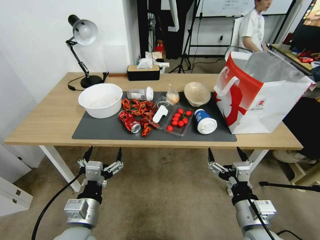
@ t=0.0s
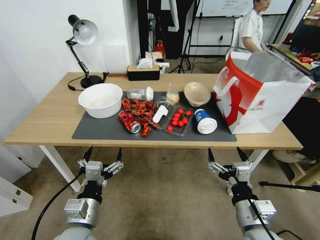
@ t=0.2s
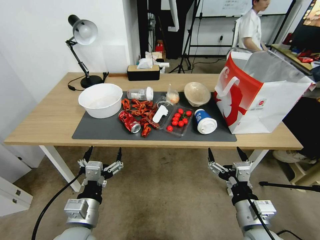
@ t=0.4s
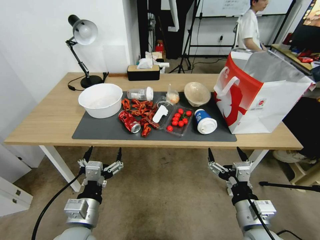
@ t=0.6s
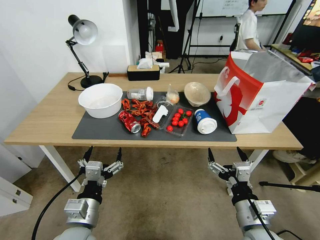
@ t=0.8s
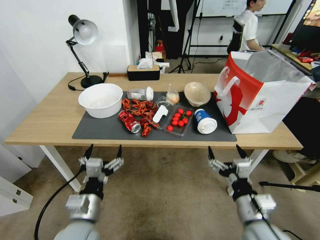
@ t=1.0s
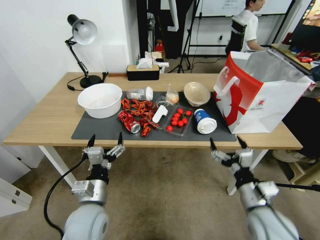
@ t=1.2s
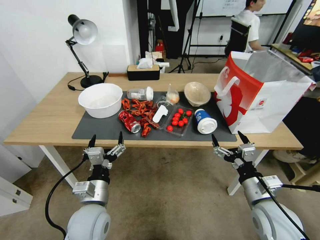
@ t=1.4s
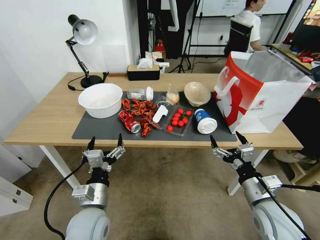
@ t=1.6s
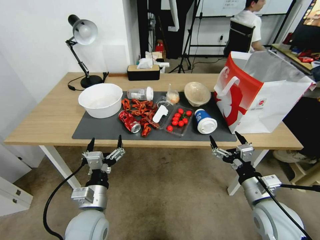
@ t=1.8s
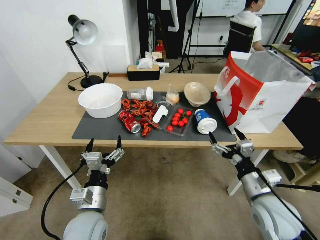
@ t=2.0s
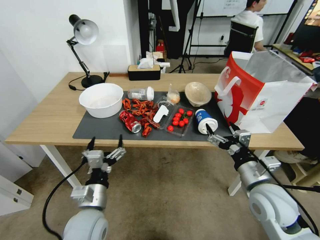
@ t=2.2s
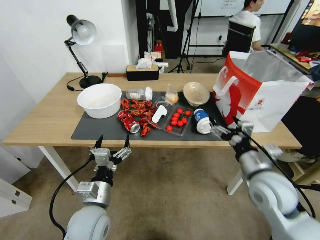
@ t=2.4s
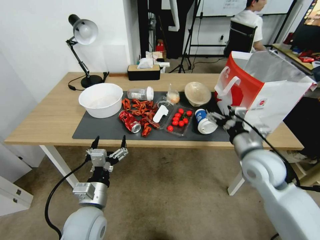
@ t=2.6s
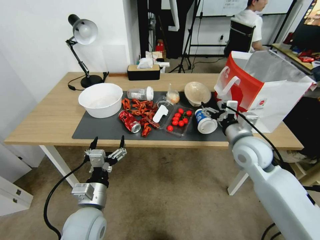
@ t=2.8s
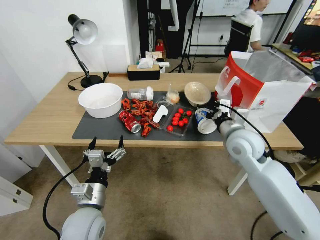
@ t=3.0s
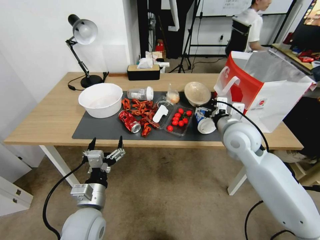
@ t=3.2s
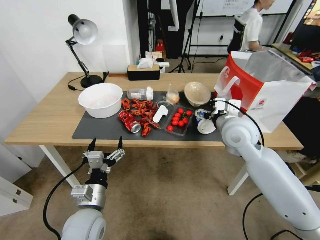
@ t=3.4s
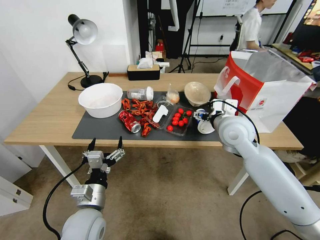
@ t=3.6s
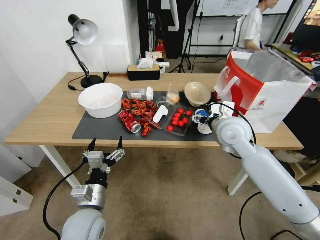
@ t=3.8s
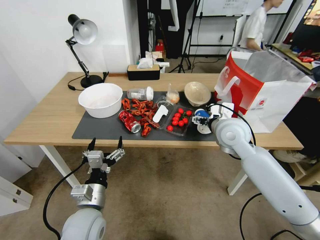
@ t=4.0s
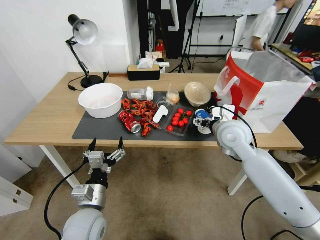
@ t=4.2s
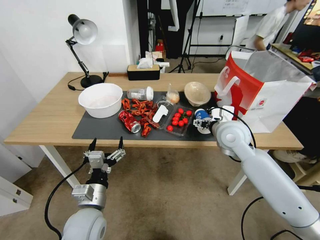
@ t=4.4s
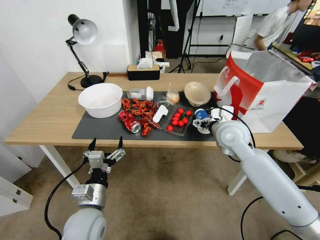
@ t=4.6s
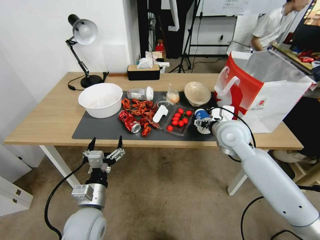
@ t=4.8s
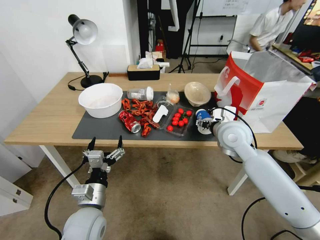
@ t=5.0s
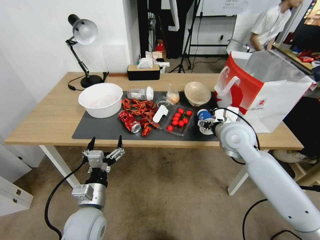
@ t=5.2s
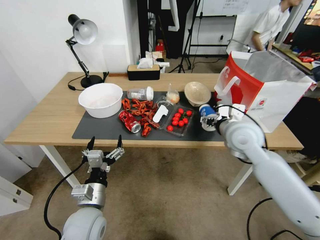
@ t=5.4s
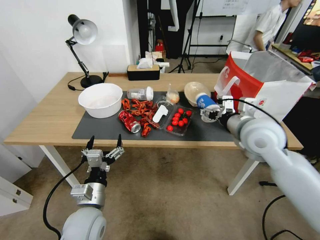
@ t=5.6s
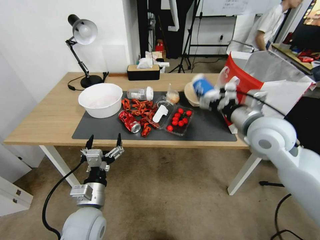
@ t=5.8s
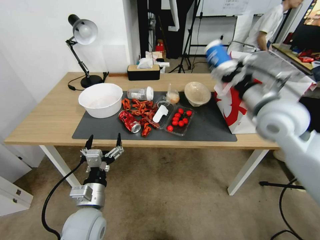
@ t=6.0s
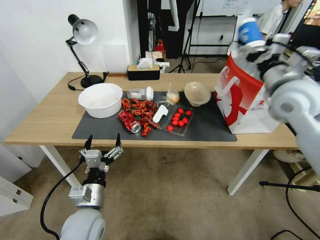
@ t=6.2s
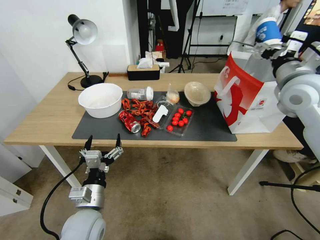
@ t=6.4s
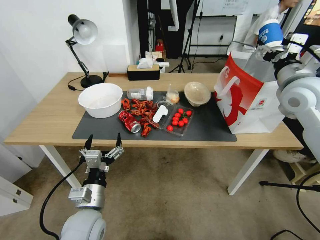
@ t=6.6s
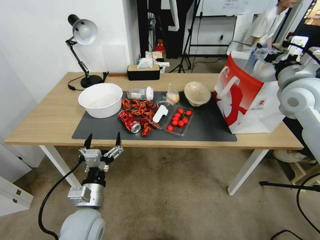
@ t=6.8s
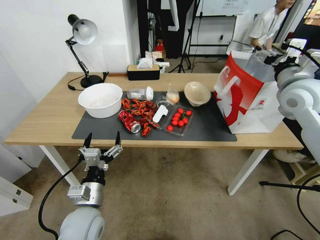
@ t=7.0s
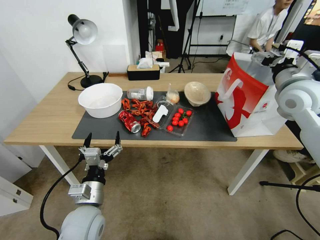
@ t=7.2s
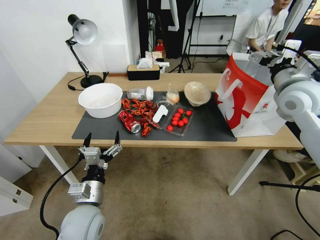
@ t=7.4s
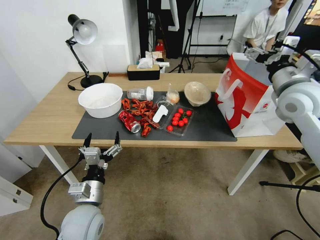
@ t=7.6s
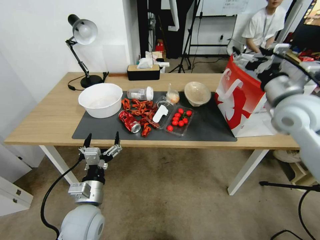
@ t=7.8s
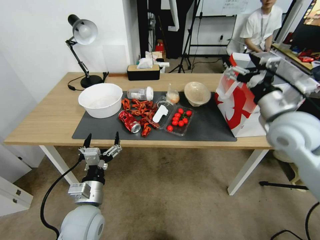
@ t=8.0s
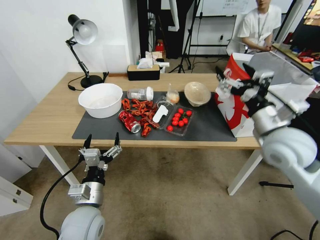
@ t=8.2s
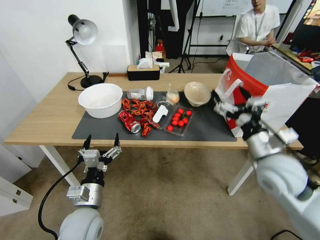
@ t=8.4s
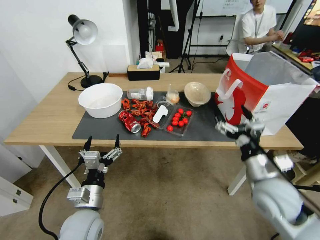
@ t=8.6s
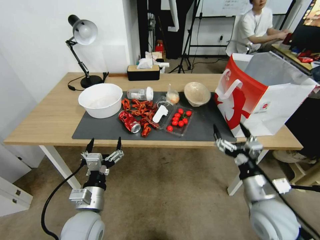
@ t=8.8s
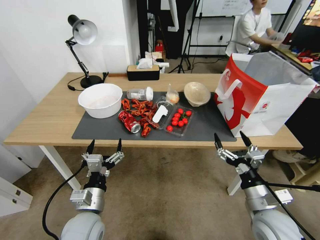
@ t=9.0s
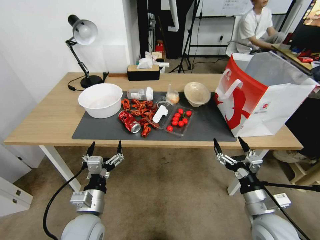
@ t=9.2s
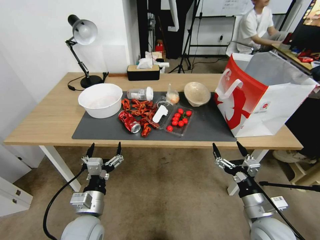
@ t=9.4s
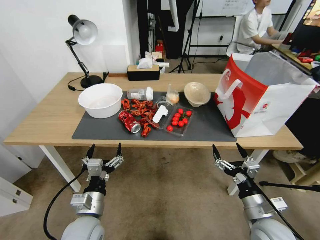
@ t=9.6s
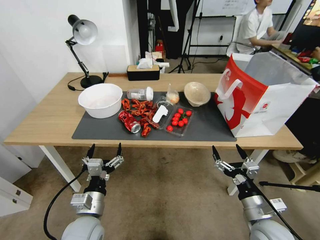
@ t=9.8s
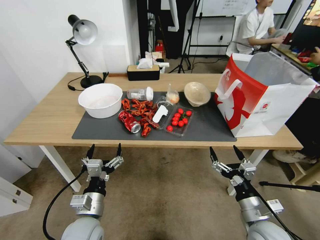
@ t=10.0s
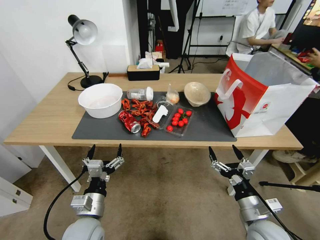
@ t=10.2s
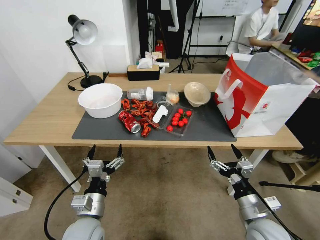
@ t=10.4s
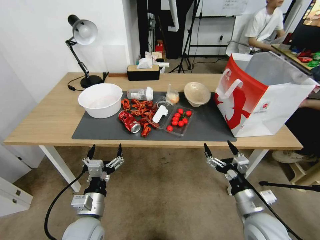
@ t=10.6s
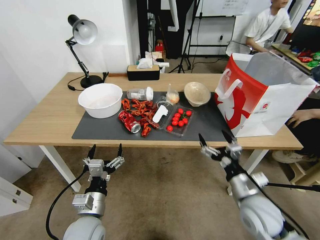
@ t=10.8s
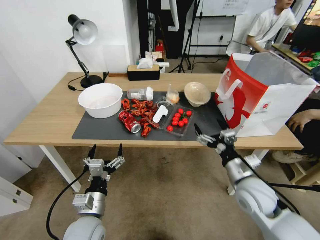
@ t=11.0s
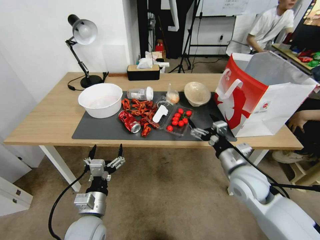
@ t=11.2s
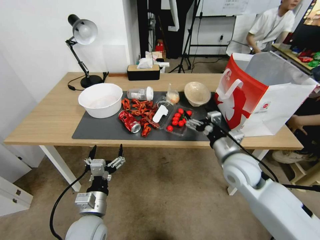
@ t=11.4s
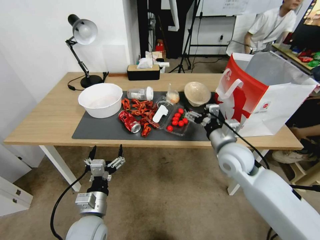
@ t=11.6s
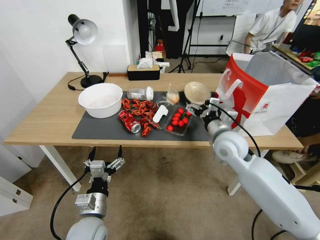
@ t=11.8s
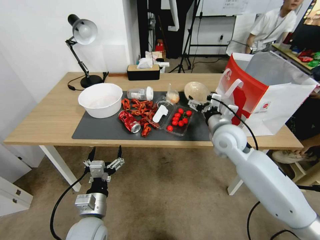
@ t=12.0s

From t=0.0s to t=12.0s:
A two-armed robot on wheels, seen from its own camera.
From t=1.6s to t=3.0s: The right gripper shifts some 20 cm forward and upward.
From t=4.4s to t=6.0s: The right gripper moves upward and to the right, about 15 cm.
From t=6.0s to t=7.6s: The right gripper travels to the right by approximately 5 cm.
From t=7.6s to t=9.0s: The right gripper shifts some 35 cm downward and backward.
From t=9.0s to t=10.4s: The grippers move only a little.
From t=10.4s to t=12.0s: The right gripper goes approximately 25 cm forward and upward.

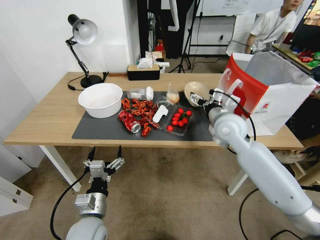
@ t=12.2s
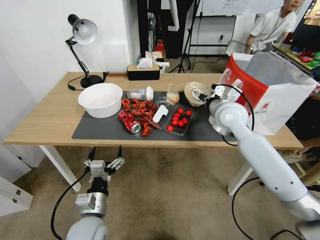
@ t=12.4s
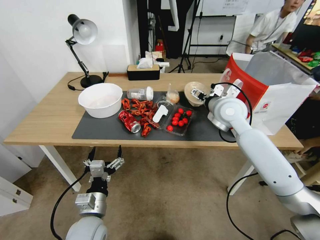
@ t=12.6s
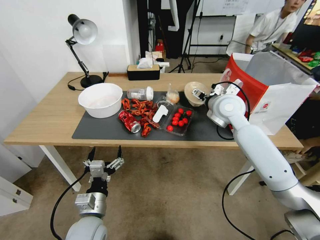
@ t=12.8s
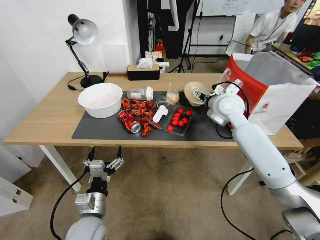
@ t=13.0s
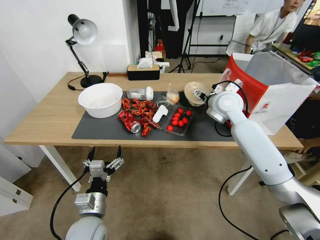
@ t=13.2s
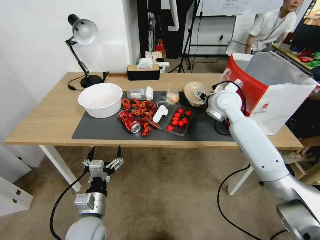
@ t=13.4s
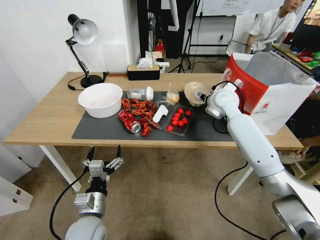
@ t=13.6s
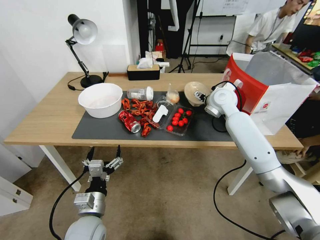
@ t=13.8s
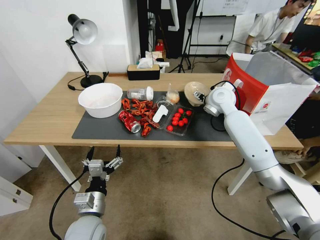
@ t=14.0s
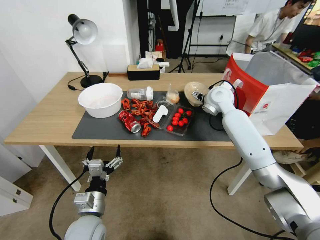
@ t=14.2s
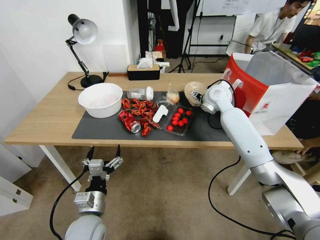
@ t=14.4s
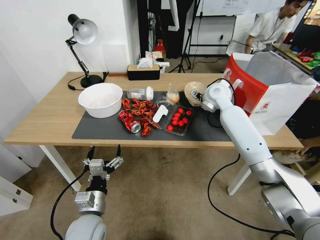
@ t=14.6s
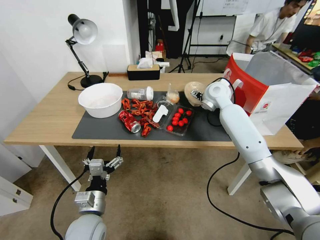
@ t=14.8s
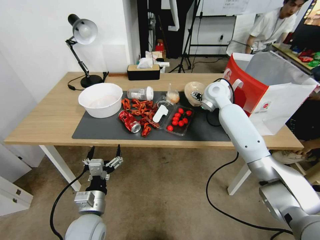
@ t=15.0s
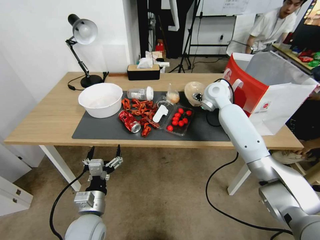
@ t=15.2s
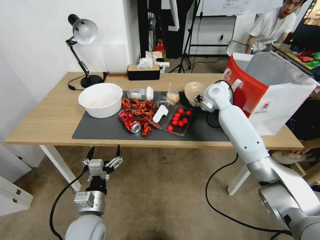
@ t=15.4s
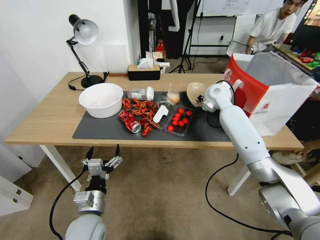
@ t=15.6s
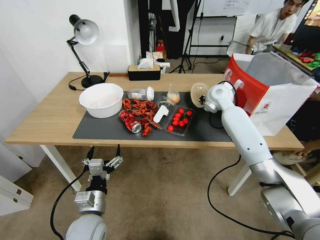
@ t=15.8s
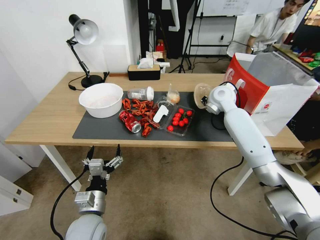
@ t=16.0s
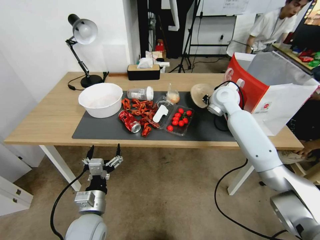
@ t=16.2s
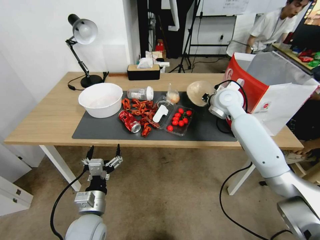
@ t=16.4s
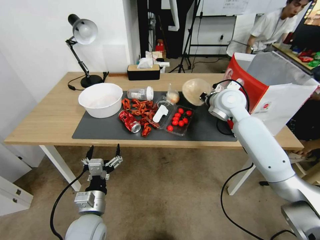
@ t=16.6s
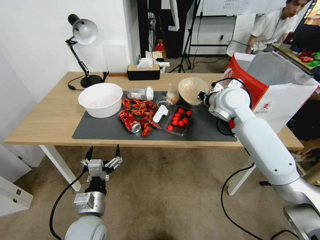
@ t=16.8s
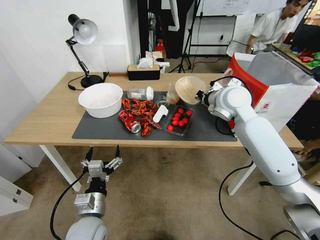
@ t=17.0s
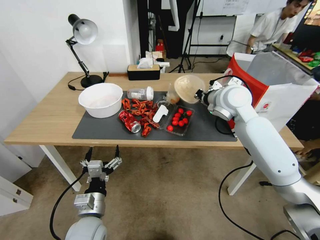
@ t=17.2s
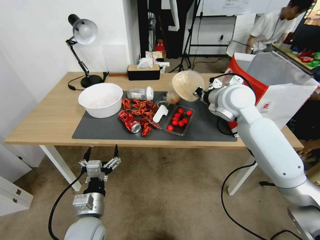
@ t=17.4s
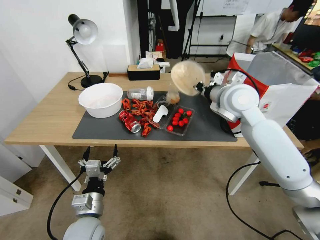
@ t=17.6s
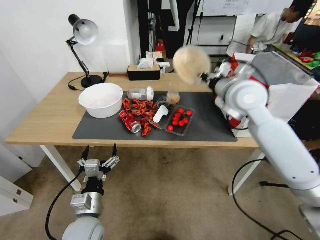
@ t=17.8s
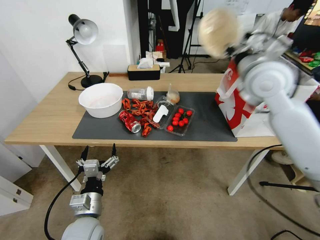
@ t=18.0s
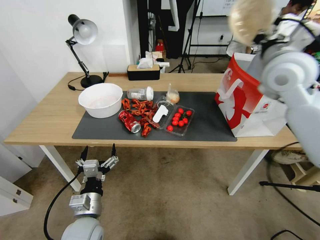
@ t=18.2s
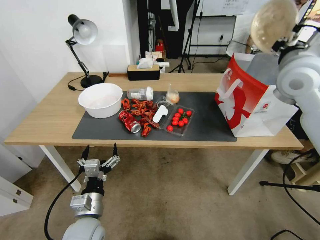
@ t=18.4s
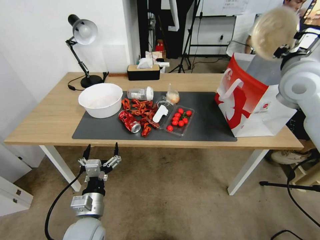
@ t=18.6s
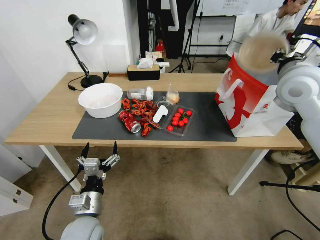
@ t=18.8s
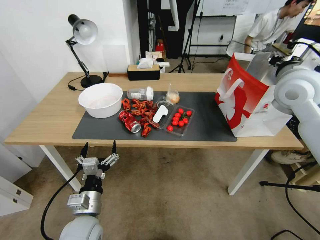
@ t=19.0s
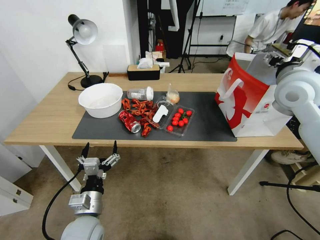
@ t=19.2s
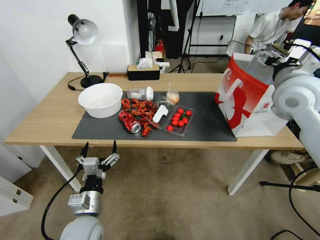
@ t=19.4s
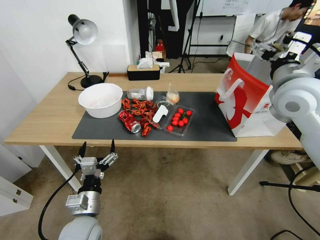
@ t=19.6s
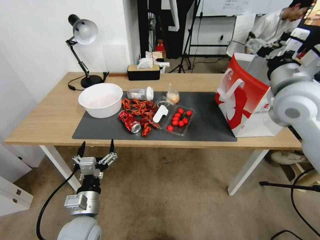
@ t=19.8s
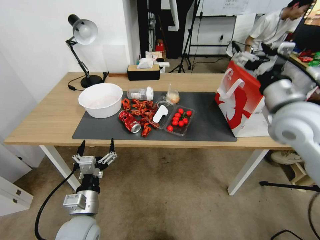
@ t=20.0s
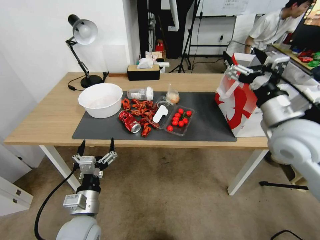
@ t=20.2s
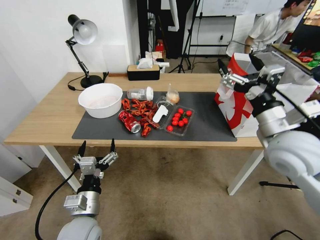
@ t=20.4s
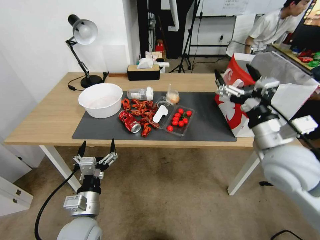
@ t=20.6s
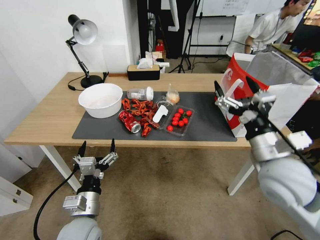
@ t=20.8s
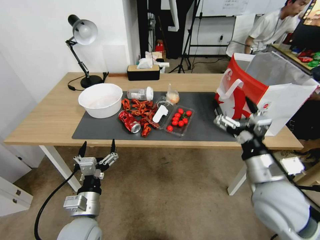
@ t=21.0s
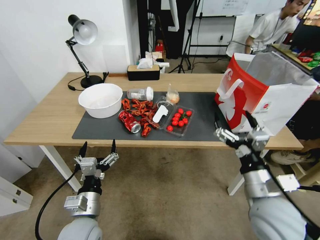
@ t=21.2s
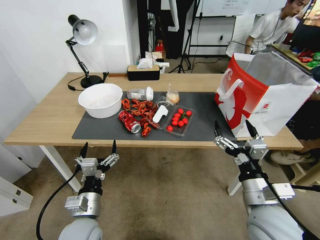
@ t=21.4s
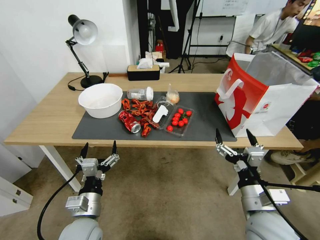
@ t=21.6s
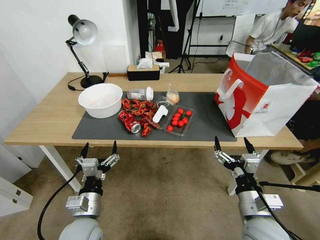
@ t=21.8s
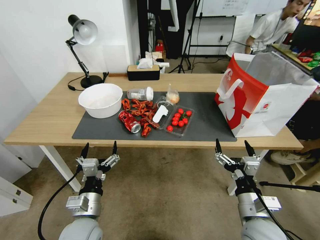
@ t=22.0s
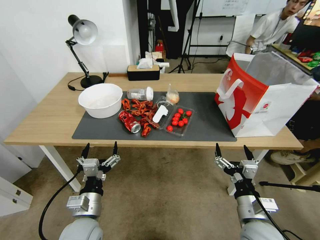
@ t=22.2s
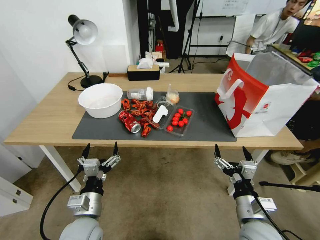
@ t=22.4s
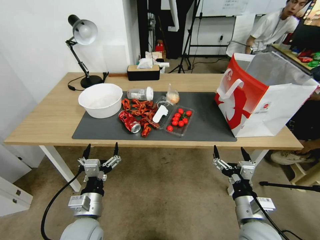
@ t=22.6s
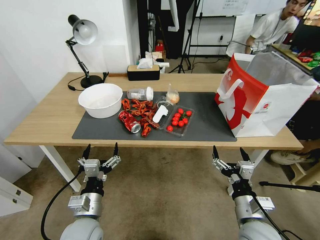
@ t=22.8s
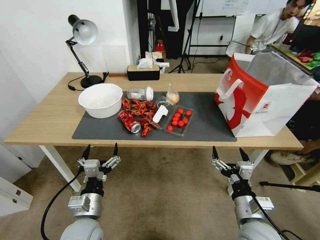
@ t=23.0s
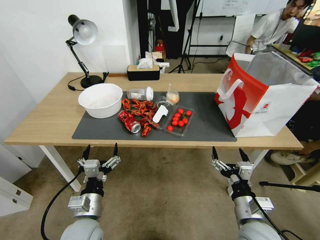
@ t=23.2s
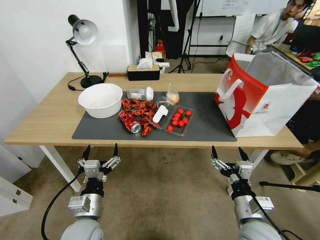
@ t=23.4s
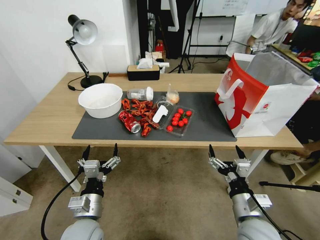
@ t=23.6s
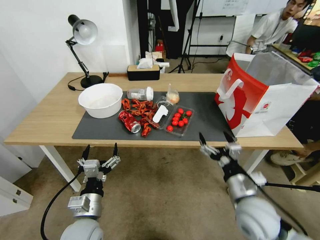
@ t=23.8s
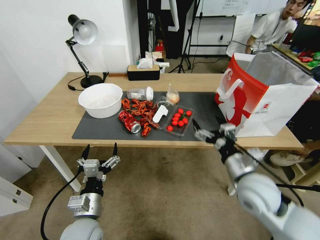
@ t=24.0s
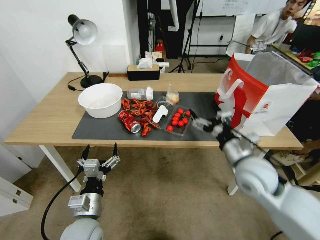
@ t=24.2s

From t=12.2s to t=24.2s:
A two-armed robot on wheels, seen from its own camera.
From t=12.2s to t=13.8s: The right gripper goes roughly 10 cm forward.
From t=13.8s to t=15.2s: There are only small adjustments of the grippers.
From t=15.2s to t=16.6s: The right gripper travels backward by some 10 cm, and closes up.
From t=16.6s to t=18.2s: The right gripper shifts roughly 15 cm upward, to the right and backward.
From t=18.2s to t=19.8s: The right gripper is displaced backward by about 5 cm, and opens.
From t=19.8s to t=21.2s: The right gripper moves downward and backward, approximately 25 cm.
From t=21.2s to t=22.6s: The right gripper goes roughly 10 cm downward.
From t=22.6s to t=24.2s: The right gripper is displaced forward and upward by about 15 cm.
